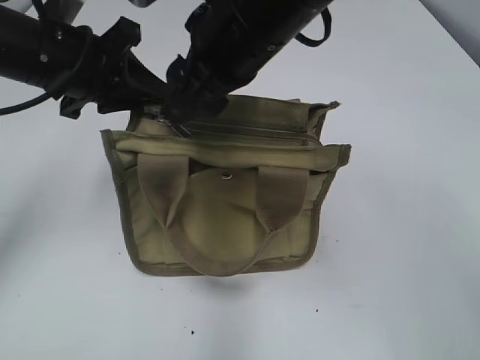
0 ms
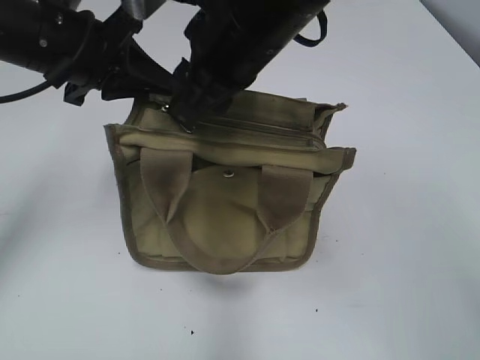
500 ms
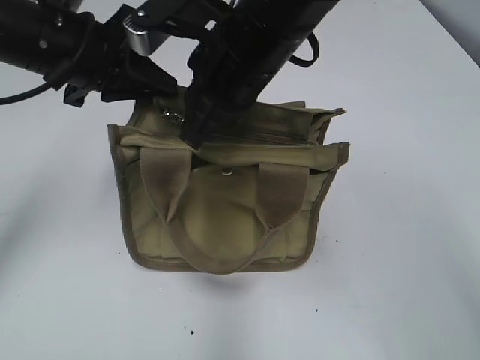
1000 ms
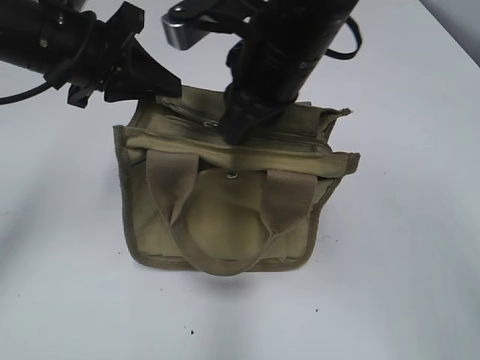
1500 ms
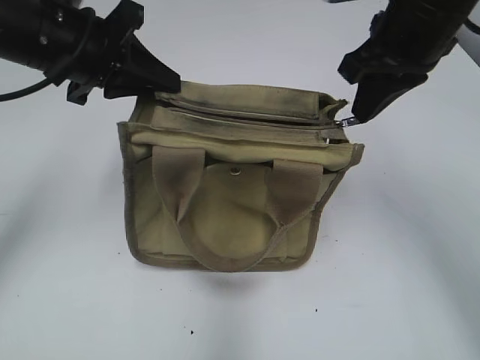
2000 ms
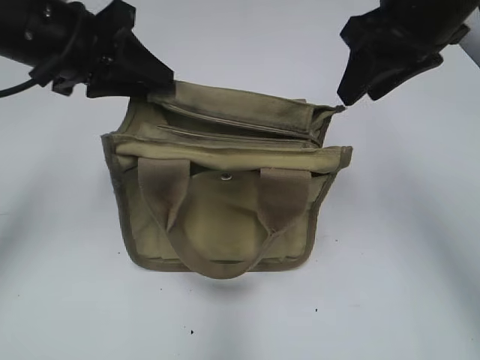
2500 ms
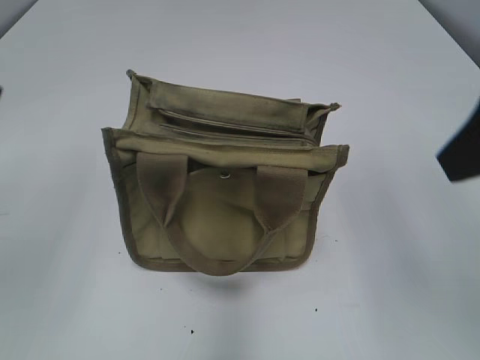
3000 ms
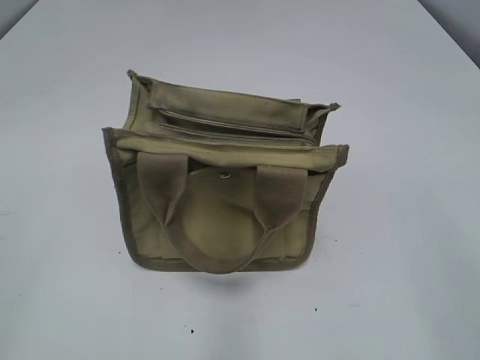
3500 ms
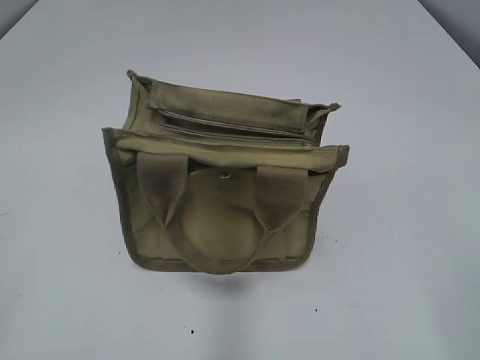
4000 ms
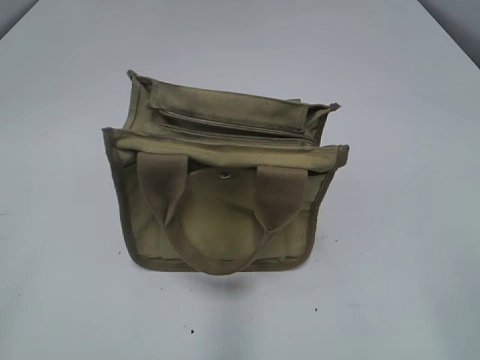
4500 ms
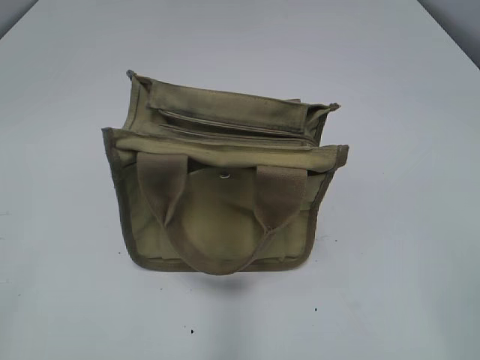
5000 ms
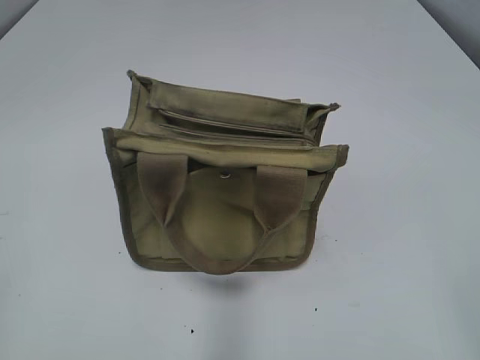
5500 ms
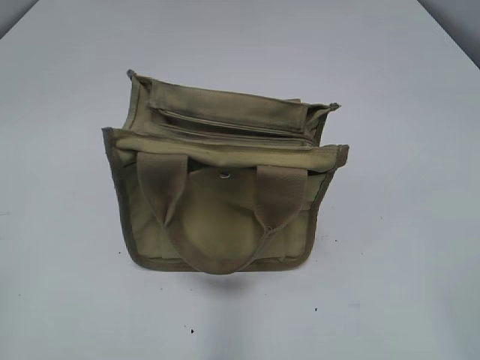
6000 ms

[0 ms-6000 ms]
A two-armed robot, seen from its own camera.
Step, 0 ms to 2000 ms: Pull open the zipper with your right hand.
0 ms to 2000 ms: The right gripper travels to the right by about 15 cm, and closes up.
2000 ms to 4000 ms: The left gripper heads backward and to the left, covering roughly 35 cm, and opens up; the right gripper heads backward, covering approximately 35 cm, and opens its fingers.
